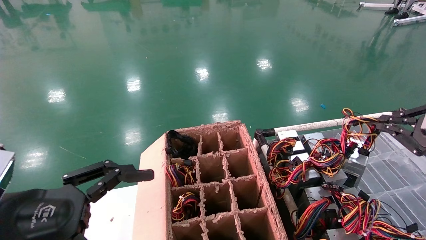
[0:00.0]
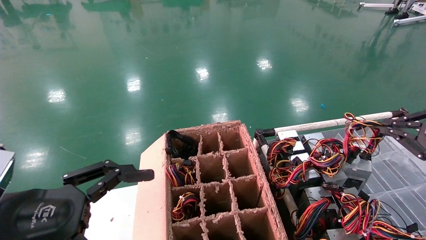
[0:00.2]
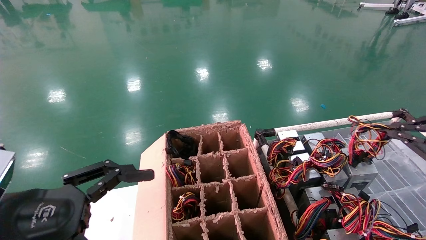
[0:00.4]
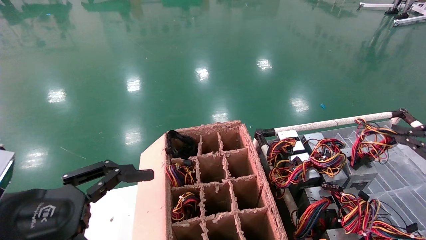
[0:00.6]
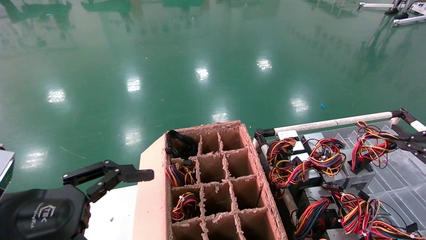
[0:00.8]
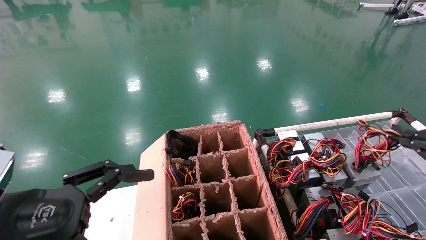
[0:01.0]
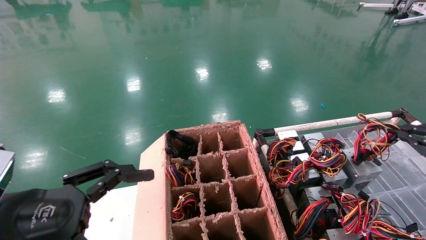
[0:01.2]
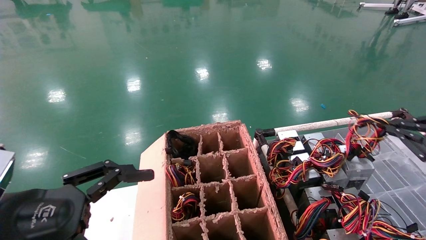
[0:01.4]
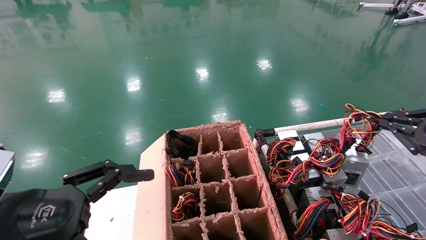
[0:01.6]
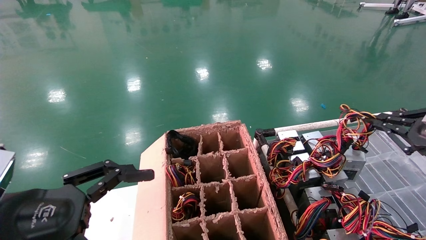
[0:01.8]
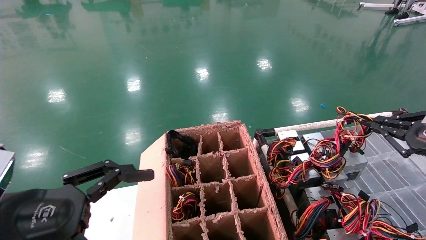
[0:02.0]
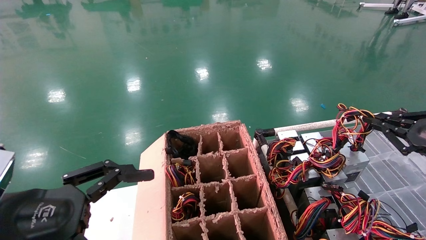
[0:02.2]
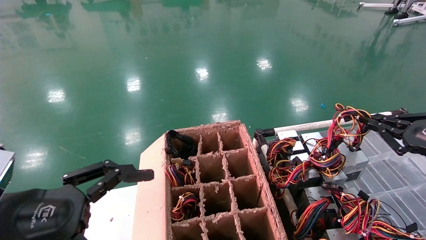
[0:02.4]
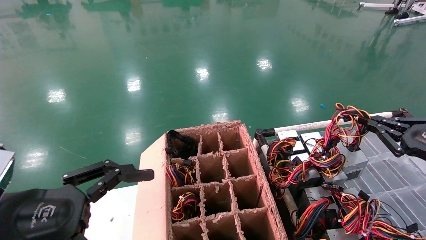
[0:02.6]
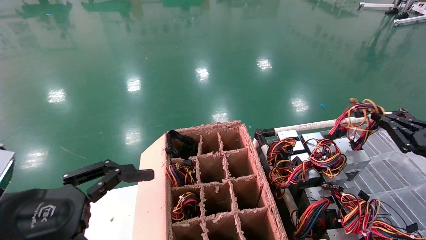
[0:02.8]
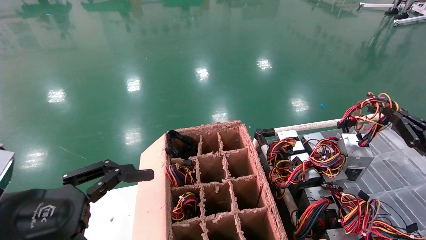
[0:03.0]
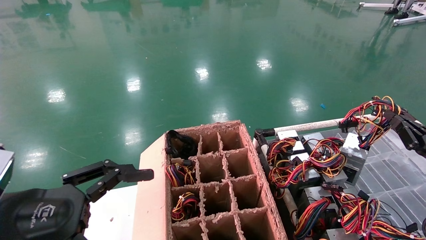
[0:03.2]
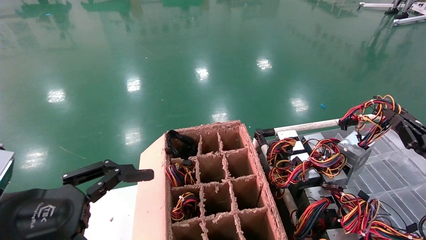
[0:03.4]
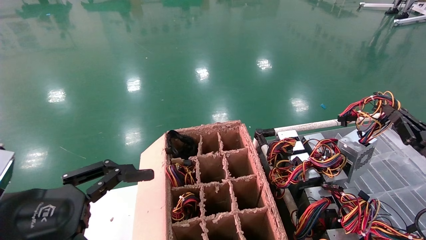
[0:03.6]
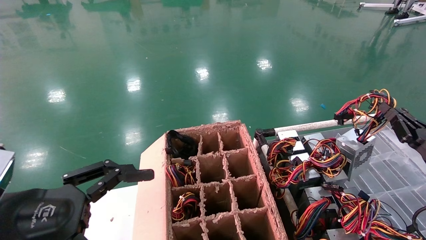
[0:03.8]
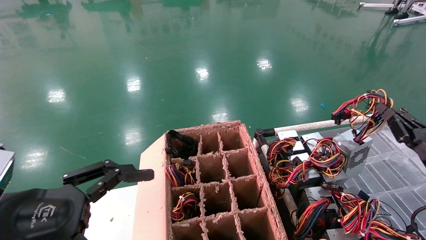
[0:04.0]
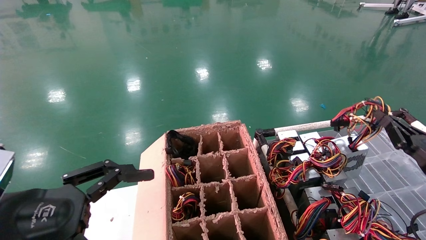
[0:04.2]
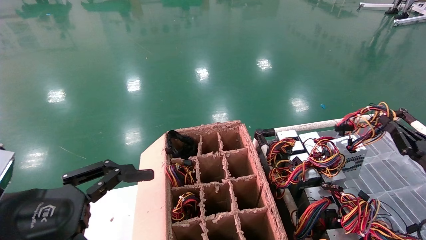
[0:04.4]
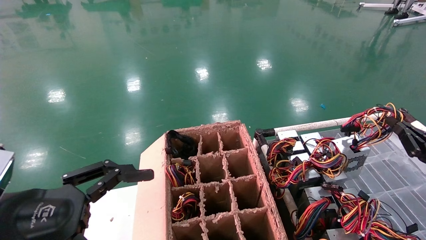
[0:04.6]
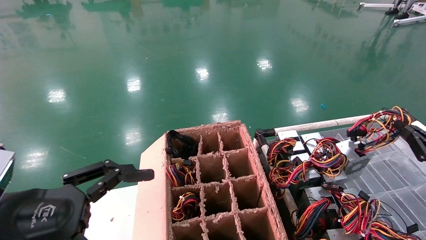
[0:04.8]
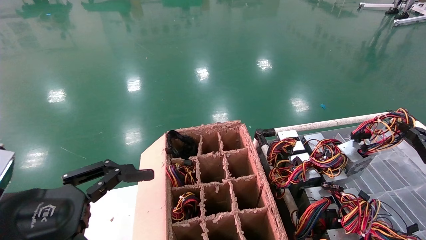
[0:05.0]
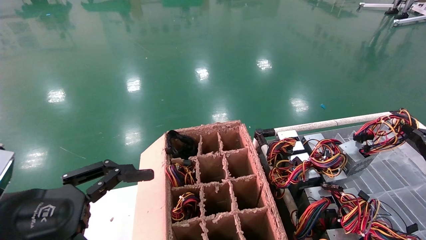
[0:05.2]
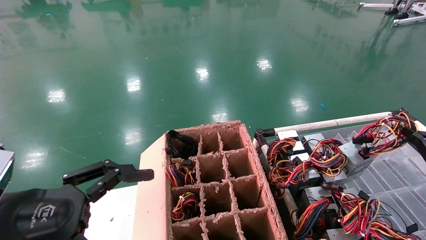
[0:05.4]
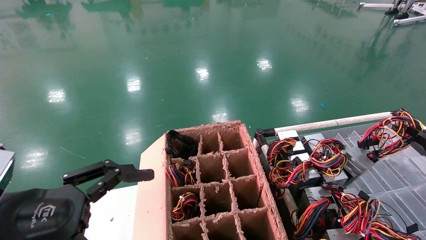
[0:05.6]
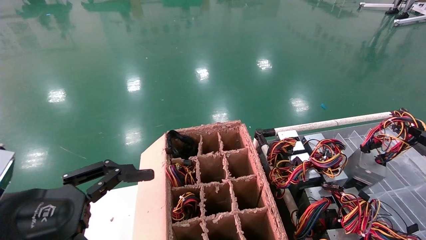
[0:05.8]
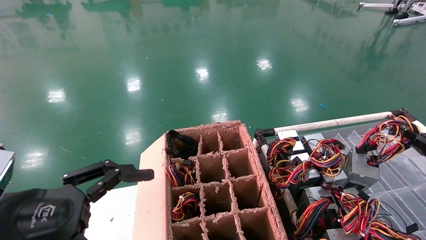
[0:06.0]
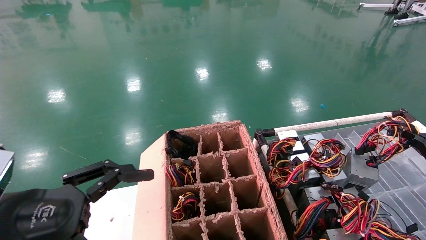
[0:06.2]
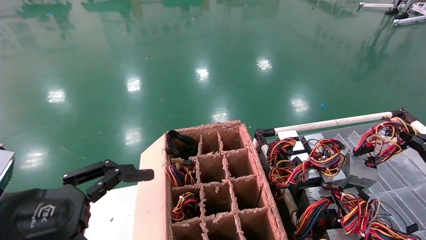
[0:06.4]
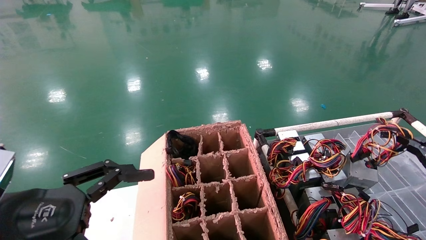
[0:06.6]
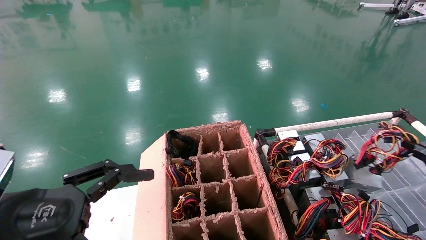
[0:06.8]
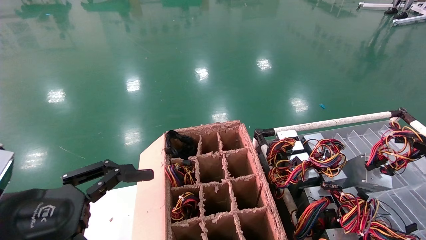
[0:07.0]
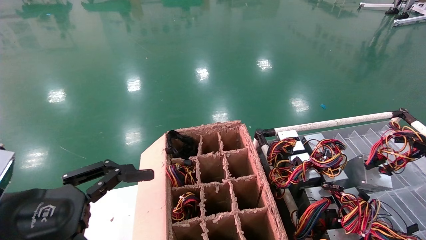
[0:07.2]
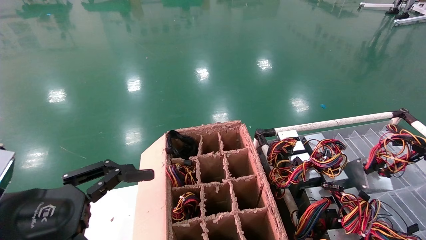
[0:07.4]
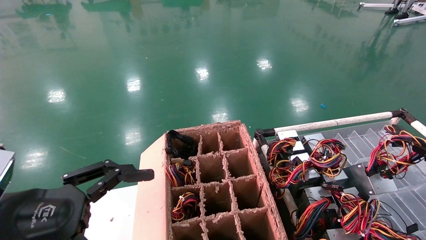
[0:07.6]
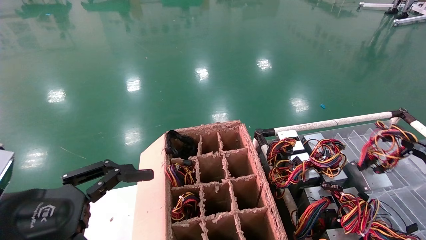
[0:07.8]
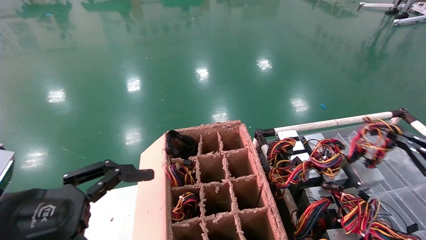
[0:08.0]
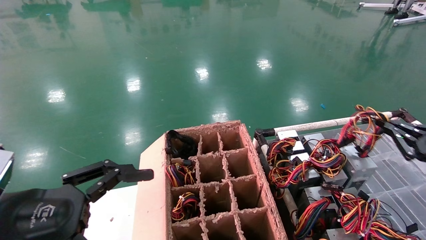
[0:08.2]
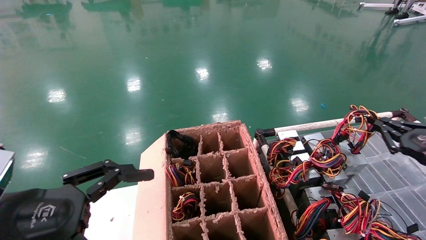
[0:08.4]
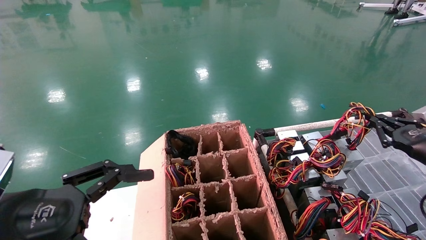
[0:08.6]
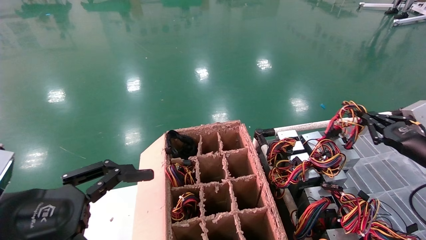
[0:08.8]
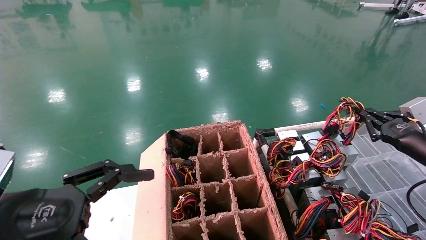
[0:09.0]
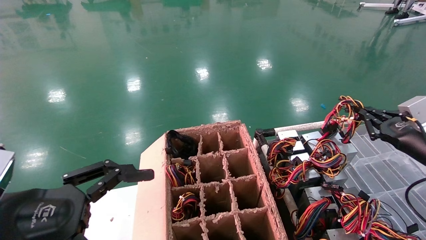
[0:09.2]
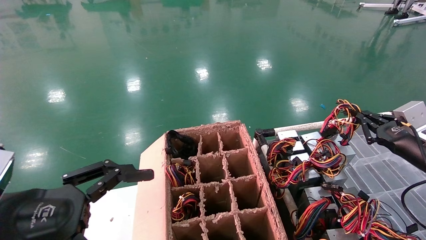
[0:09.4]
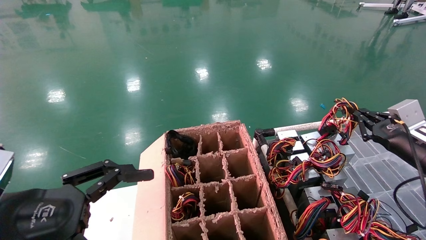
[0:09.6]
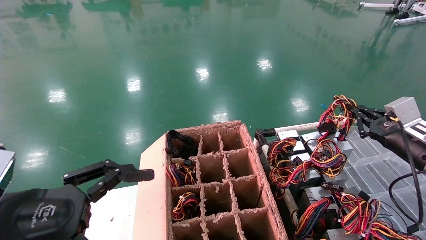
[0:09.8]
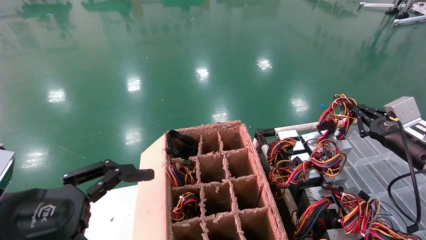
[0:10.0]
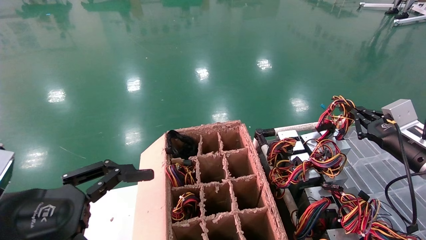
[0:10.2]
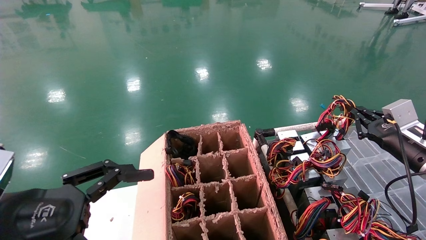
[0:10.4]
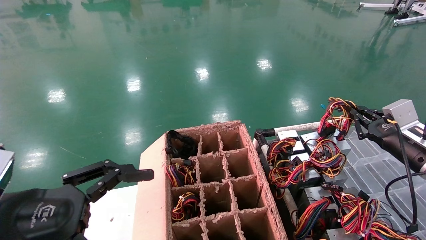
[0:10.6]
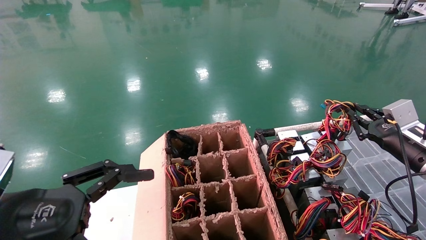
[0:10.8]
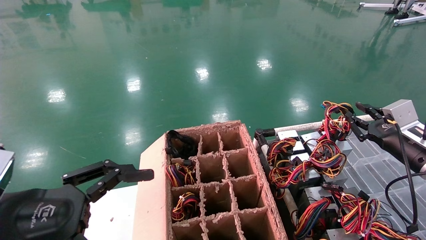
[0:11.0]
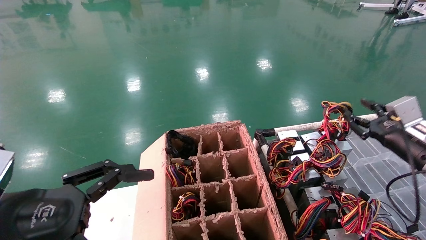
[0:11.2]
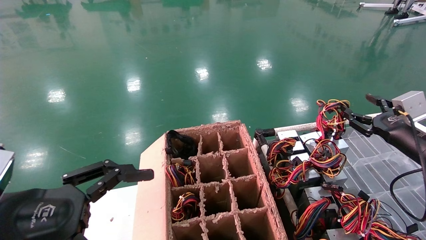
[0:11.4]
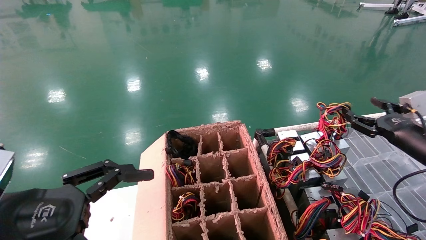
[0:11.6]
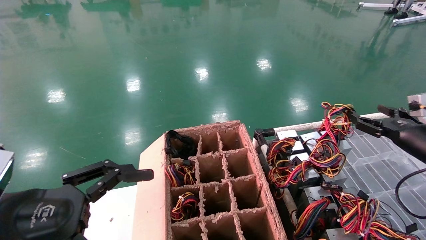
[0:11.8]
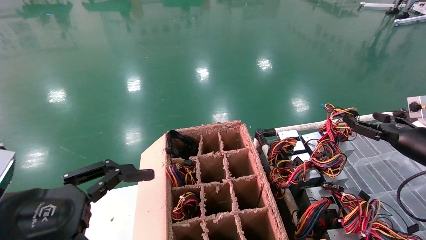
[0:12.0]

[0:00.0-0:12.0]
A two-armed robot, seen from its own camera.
Step, 0:00.0 to 0:10.8: Place the power supply on the operating table.
0:00.0 to 0:01.6: The grippers move only a little.
0:01.6 to 0:03.0: The right gripper is displaced downward by some 5 cm.
0:03.0 to 0:04.4: The grippers stay close to where they were, moving slightly.
0:04.4 to 0:06.0: The right gripper travels backward by roughly 5 cm.
0:06.0 to 0:07.6: The grippers make only small movements.
0:07.6 to 0:09.0: The right gripper travels forward and to the left by approximately 15 cm.
0:09.0 to 0:10.4: The grippers make only small movements.
0:10.4 to 0:12.0: The right gripper opens up.
